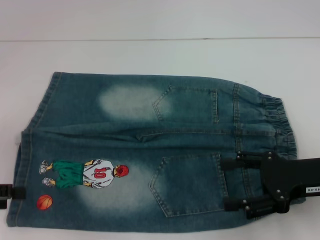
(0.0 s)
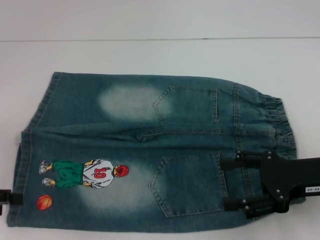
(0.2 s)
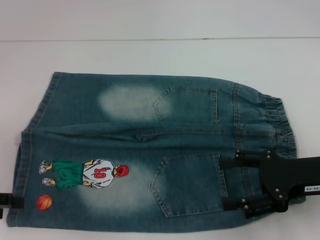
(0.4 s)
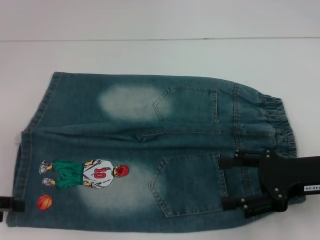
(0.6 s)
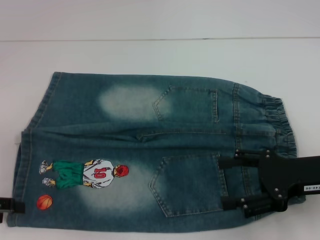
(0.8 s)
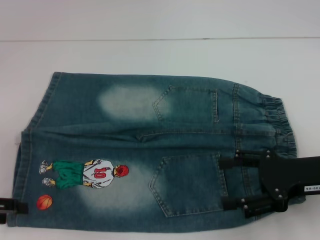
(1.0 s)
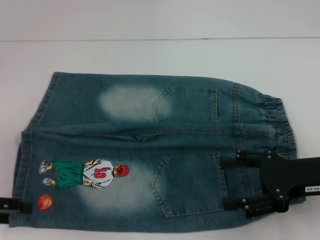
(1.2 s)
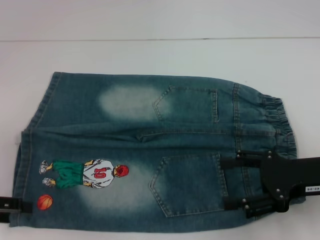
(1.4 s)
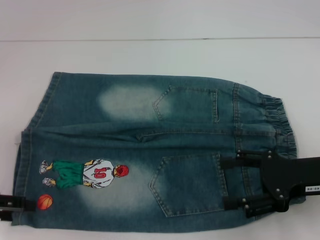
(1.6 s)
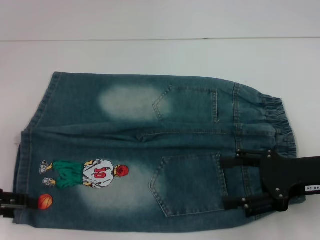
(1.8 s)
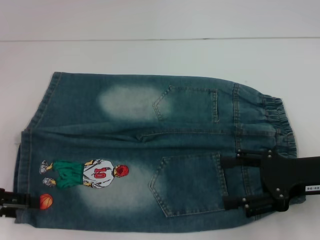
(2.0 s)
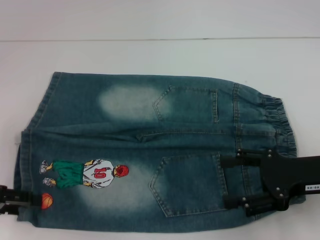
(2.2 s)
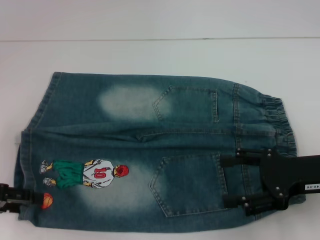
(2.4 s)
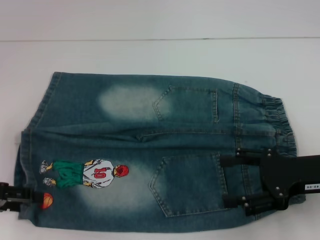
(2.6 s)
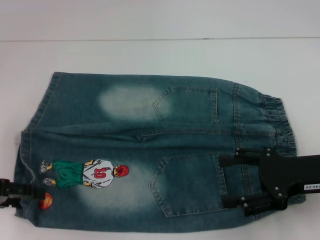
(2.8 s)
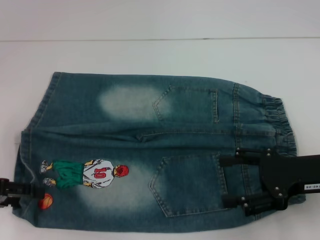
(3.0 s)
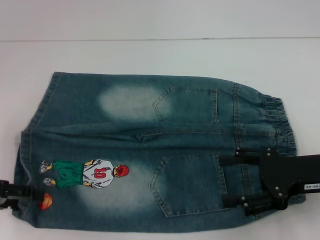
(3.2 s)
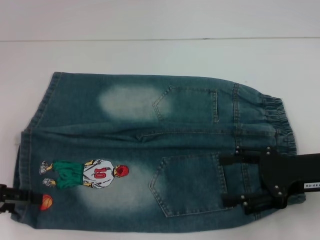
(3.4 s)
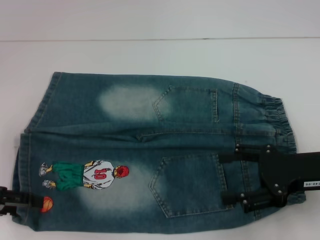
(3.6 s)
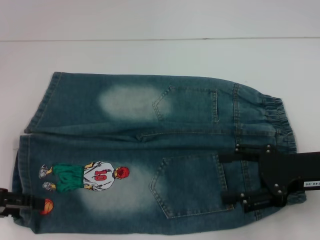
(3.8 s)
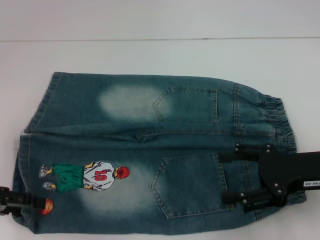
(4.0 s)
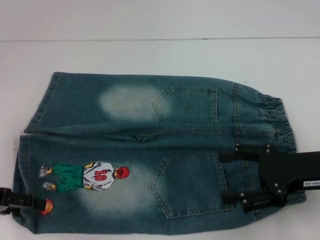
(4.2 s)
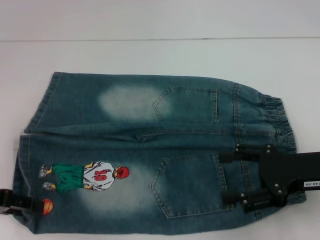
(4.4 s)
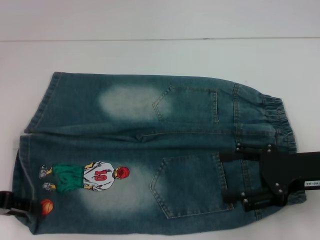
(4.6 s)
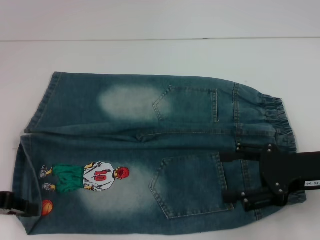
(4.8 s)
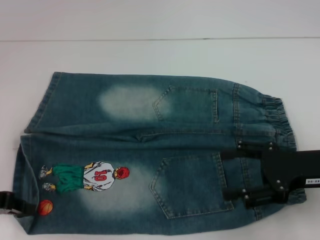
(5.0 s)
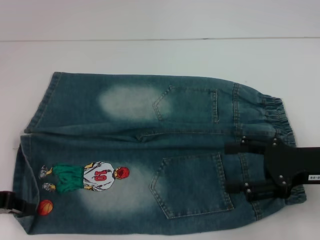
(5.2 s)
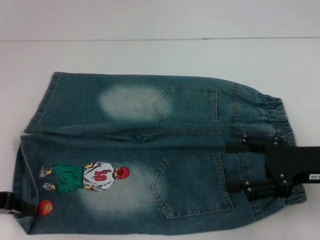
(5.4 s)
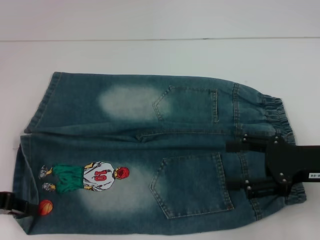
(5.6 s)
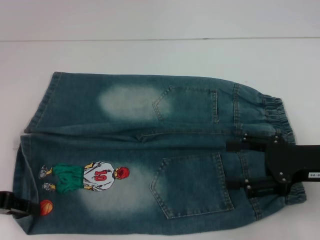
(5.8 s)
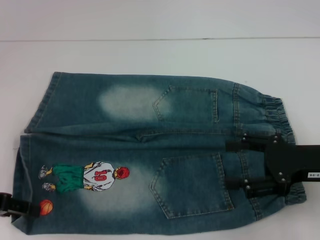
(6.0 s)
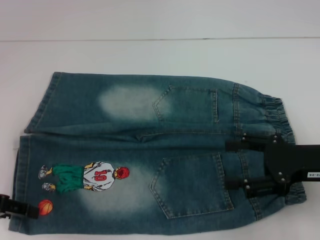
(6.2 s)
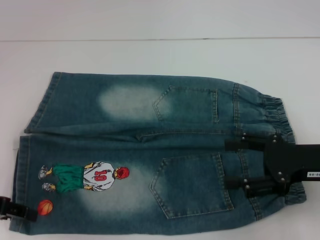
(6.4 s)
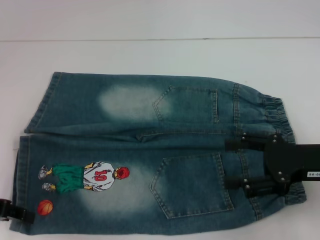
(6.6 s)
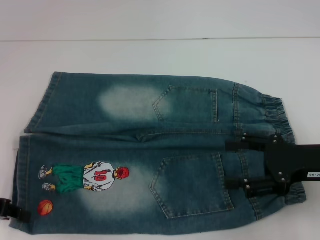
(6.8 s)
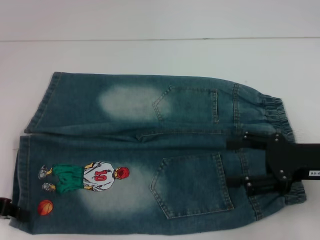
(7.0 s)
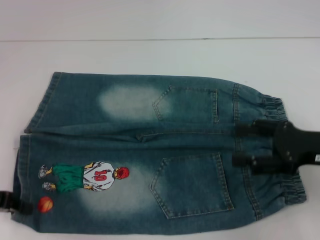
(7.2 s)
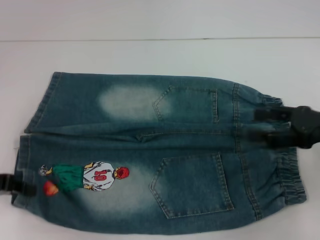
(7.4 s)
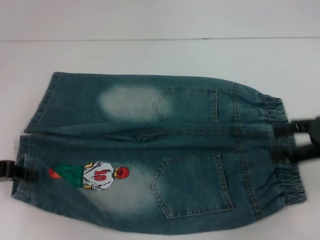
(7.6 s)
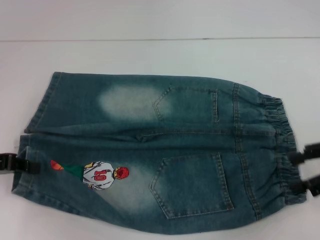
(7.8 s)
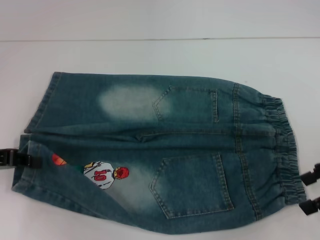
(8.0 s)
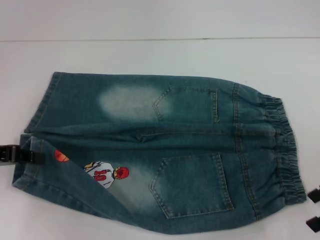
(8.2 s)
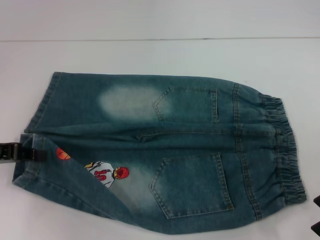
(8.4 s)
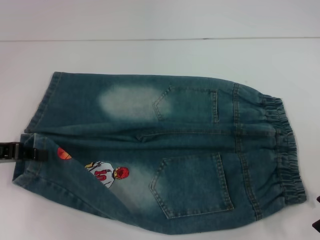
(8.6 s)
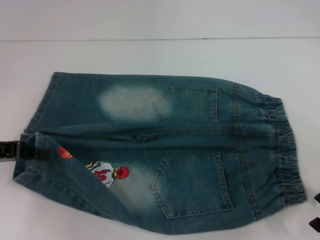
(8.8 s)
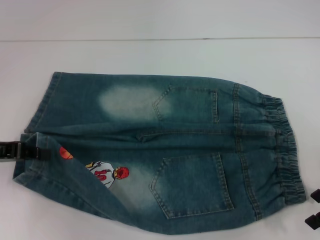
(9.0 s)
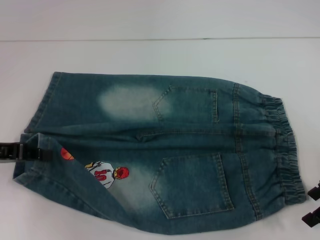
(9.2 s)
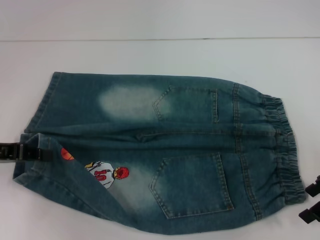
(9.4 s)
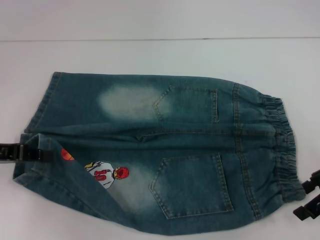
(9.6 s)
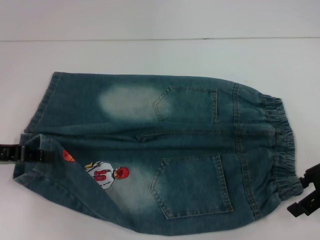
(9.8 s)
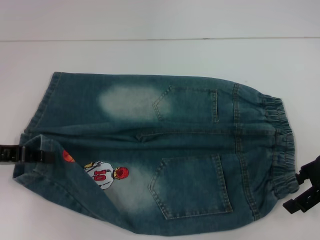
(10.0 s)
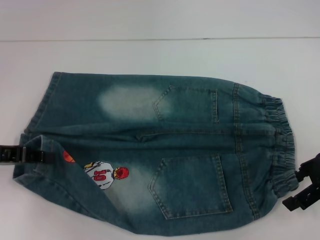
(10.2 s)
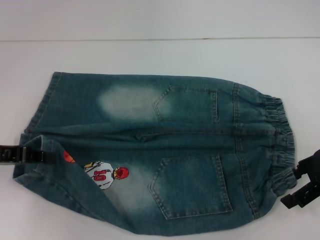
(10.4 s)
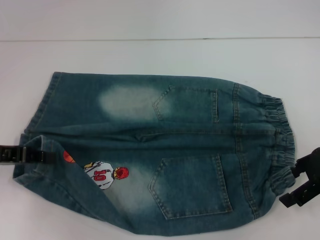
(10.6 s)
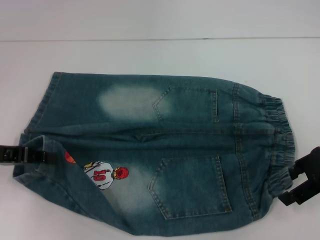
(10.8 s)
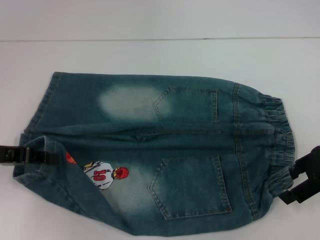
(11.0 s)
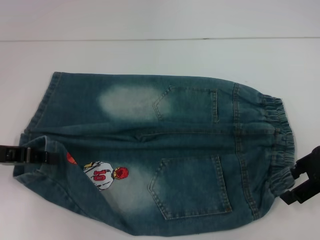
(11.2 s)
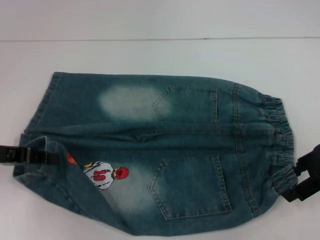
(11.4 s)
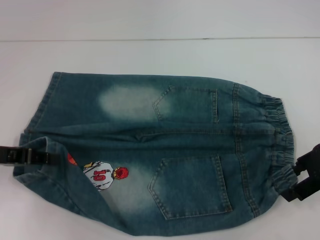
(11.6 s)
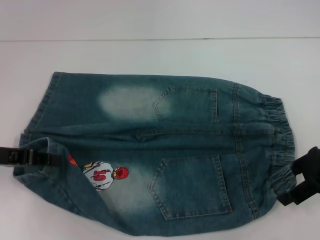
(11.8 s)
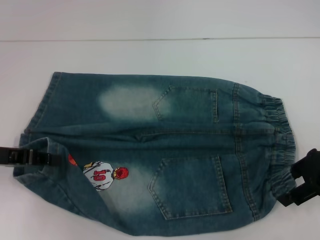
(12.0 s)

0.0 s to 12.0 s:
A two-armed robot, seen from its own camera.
Step, 0.0 to 7.6 s: Grab the lower left pant leg with your left hand.
0.0 to 4.4 s: The grippers move only a little.
4.4 to 6.0 s: The left gripper closes.
6.0 to 7.6 s: The right gripper travels to the right by some 5 cm; the left gripper closes its fingers.
9.0 to 10.4 s: The grippers move only a little.
10.4 to 12.0 s: Neither gripper changes place.

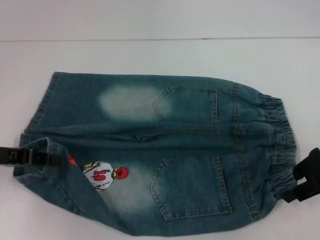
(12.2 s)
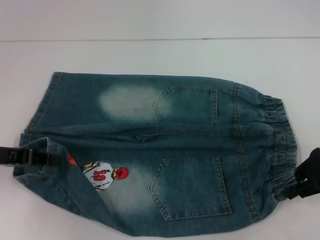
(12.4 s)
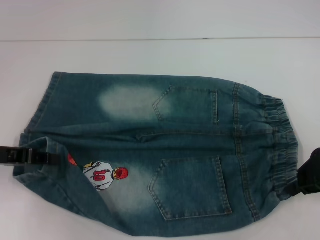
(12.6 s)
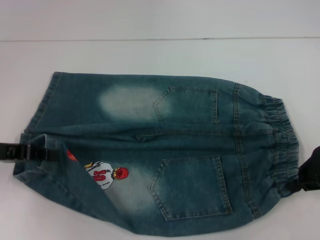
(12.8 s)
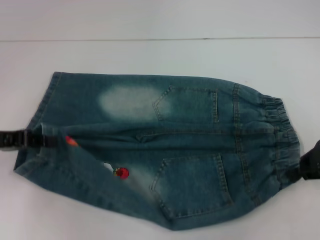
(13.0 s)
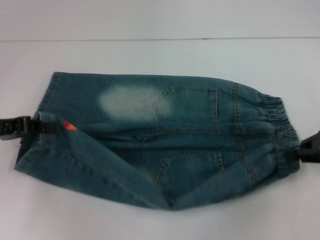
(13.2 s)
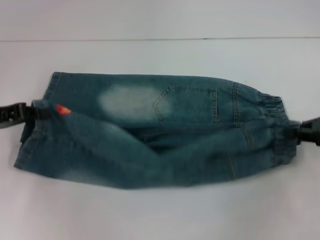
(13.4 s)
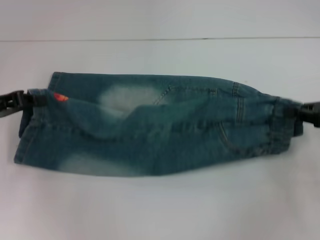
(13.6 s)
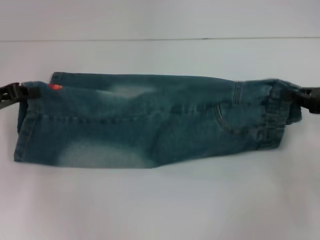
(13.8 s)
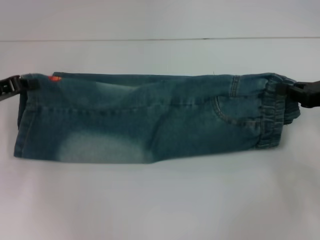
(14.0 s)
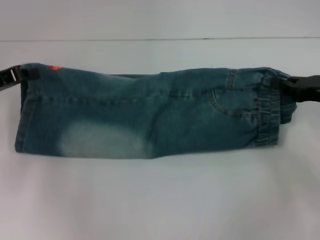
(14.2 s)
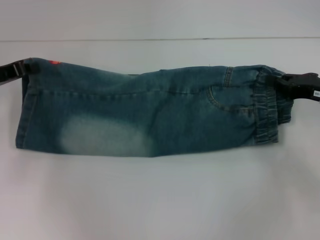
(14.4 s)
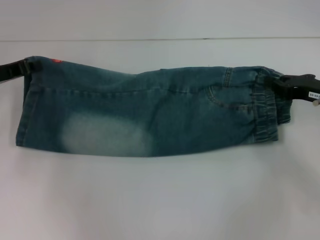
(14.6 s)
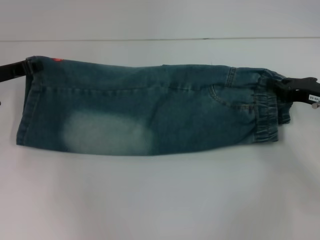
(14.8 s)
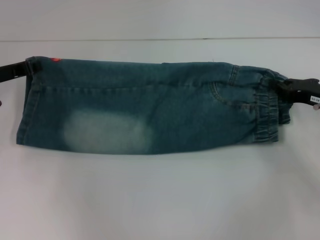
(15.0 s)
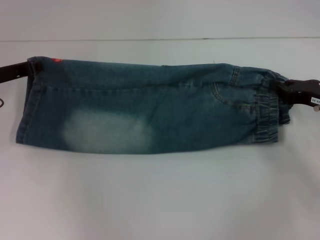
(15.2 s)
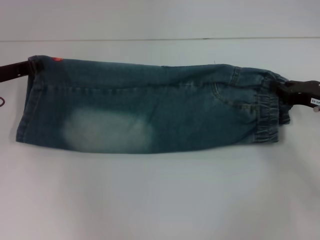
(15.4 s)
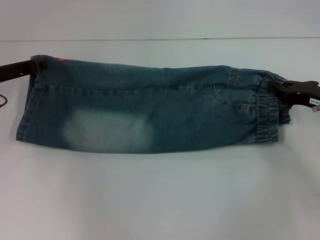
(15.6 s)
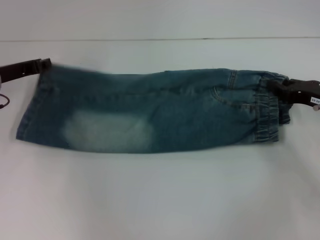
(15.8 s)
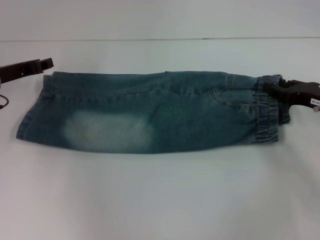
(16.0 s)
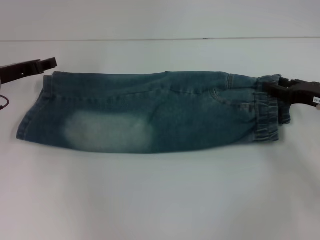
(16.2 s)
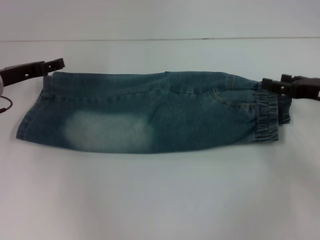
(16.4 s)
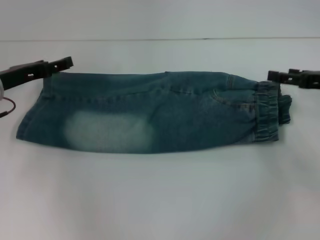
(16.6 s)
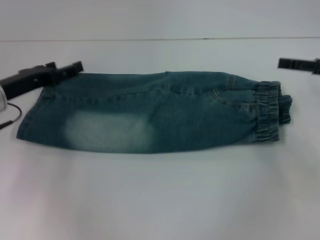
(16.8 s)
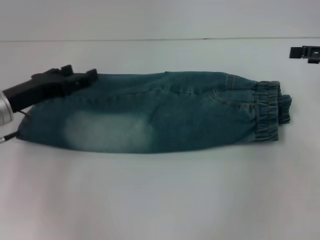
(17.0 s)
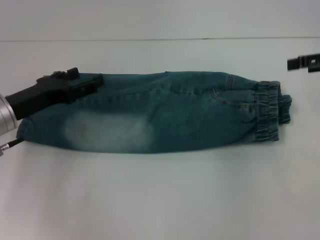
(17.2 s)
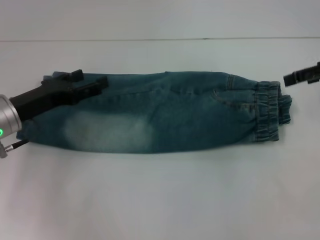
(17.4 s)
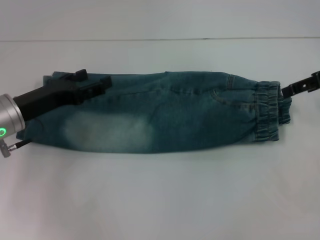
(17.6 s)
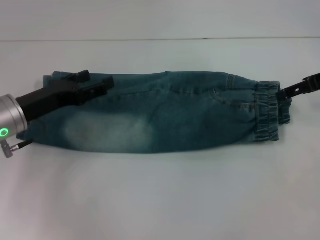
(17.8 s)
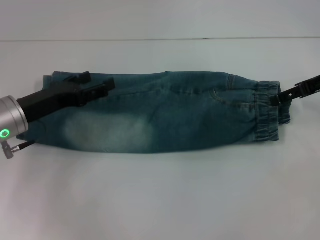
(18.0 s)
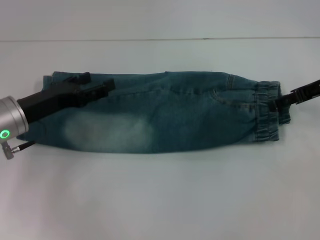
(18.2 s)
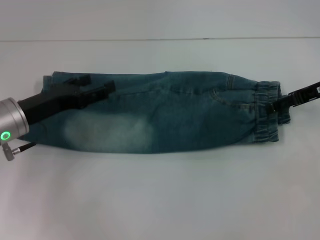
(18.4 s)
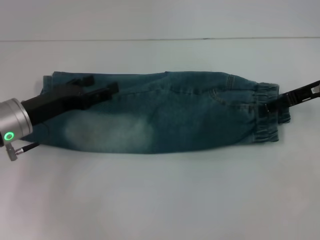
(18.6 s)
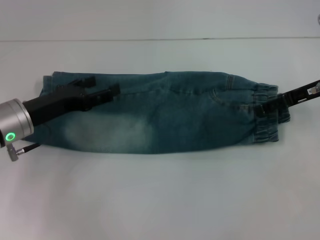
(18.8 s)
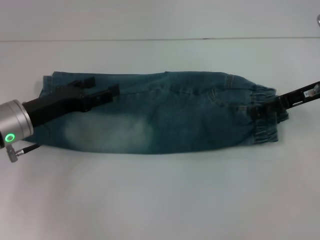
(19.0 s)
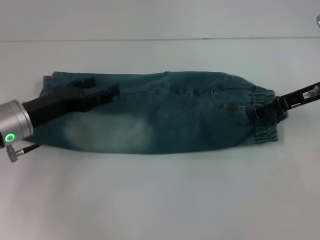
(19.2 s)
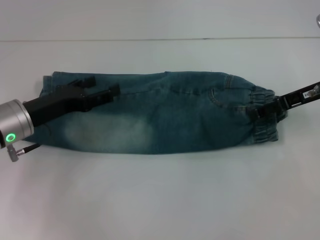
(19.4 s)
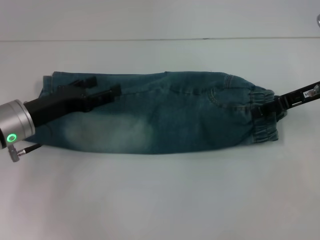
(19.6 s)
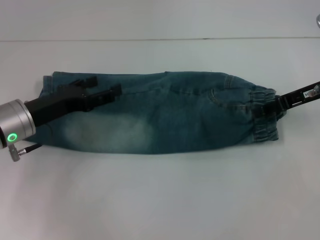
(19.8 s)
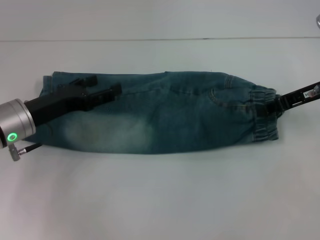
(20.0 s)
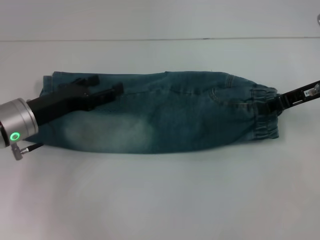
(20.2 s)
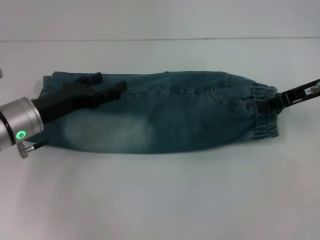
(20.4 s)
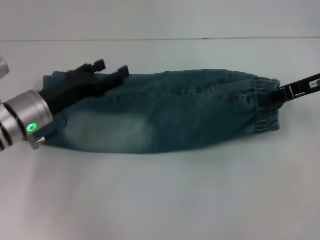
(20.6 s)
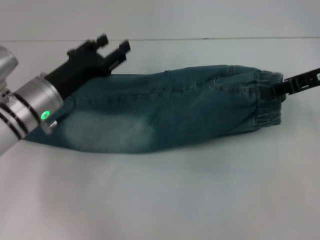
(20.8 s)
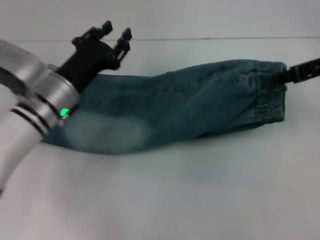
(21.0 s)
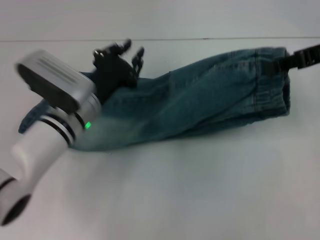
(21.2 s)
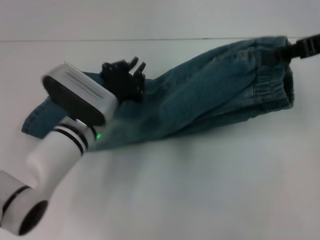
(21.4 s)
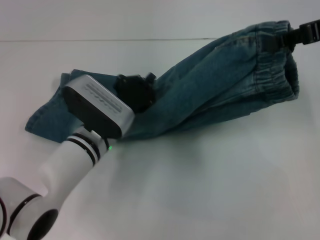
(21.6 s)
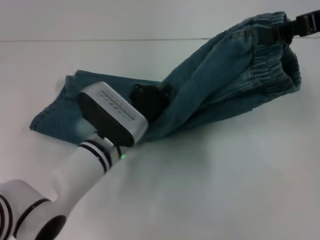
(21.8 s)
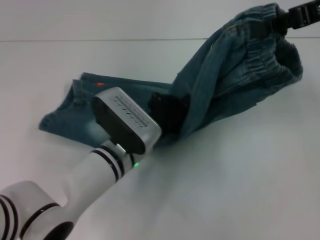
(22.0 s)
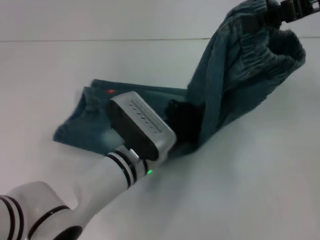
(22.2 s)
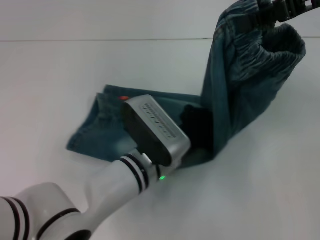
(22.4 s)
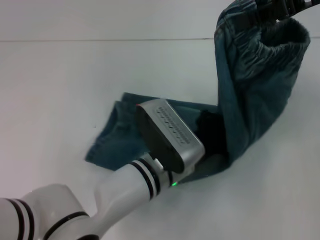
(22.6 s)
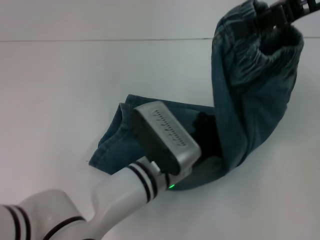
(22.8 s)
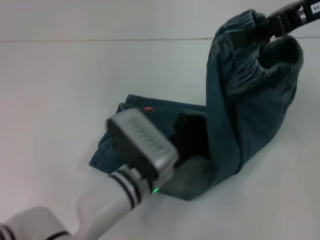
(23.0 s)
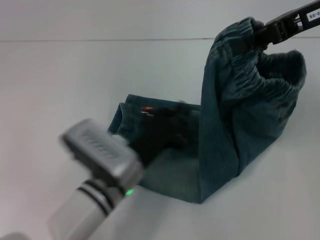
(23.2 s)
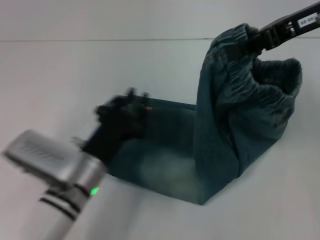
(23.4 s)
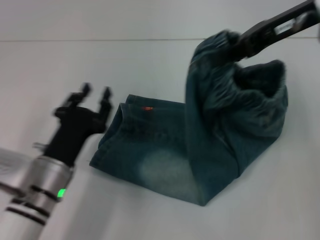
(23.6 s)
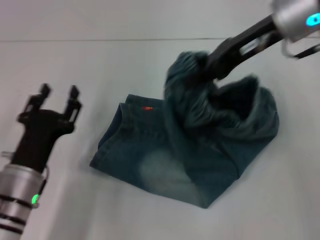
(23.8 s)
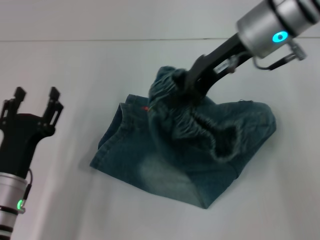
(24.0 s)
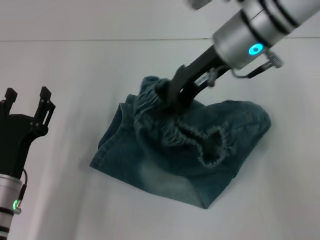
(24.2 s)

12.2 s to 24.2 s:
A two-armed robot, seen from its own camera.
Step, 12.6 to 16.0 s: Fold upward with your left hand.
Step, 16.2 to 16.4 s: Fold upward with your right hand.
Step, 16.6 to 19.8 s: Grab the waistband with your right hand.
Step, 20.0 to 23.0 s: Press the middle of the pants with your left hand.
12.2 to 13.8 s: The right gripper travels to the right by about 5 cm, and closes up.
13.8 to 15.2 s: The right gripper ends up some 5 cm from where it was, while the left gripper shifts roughly 5 cm forward.
15.2 to 16.6 s: The right gripper opens, while the left gripper opens up.
16.6 to 18.2 s: The right gripper moves some 5 cm. Meanwhile the left gripper moves backward, some 5 cm.
18.2 to 19.8 s: The grippers make only small movements.
19.8 to 21.2 s: The right gripper goes about 10 cm upward, and closes. The left gripper shifts roughly 10 cm to the right, and closes its fingers.
21.2 to 22.6 s: The left gripper is displaced to the right and backward by approximately 15 cm, and closes up; the right gripper heads upward and to the left, covering about 10 cm.
22.6 to 24.2 s: The right gripper heads to the left and downward, covering some 15 cm, while the left gripper moves to the left, roughly 20 cm, and opens up.
